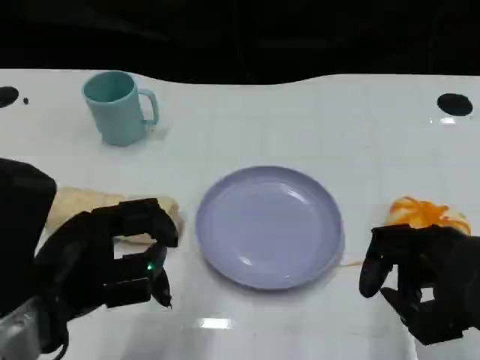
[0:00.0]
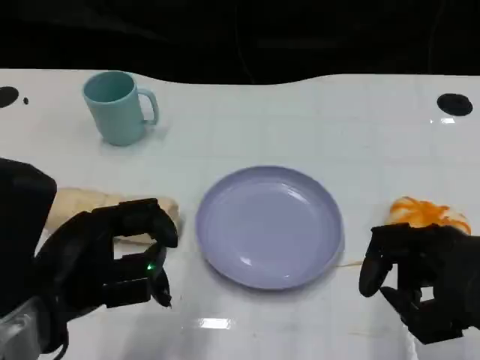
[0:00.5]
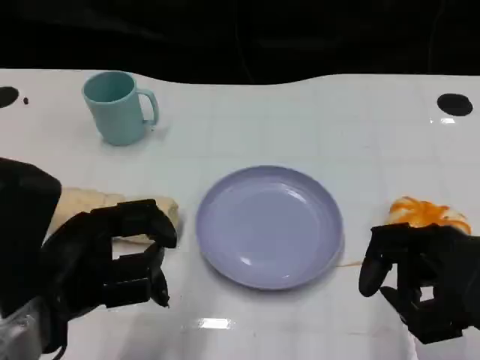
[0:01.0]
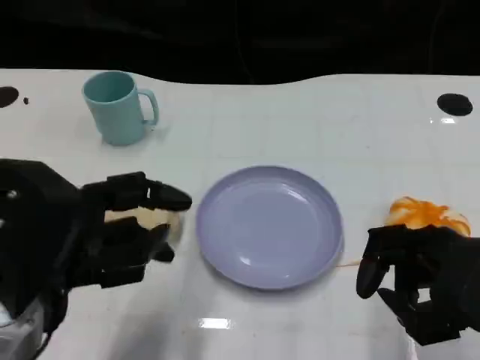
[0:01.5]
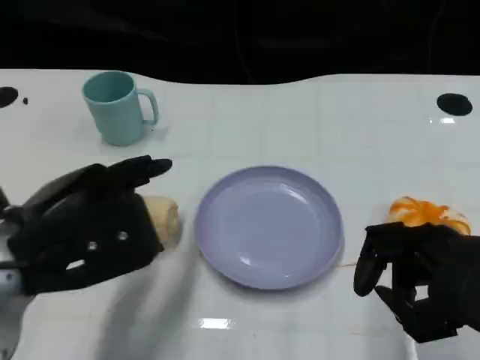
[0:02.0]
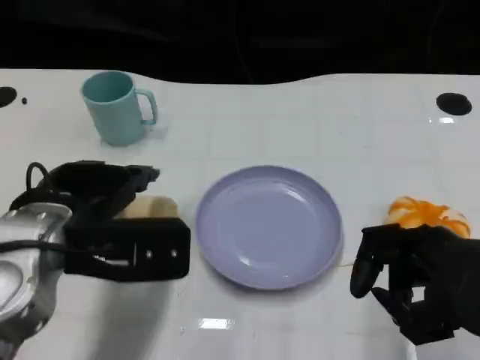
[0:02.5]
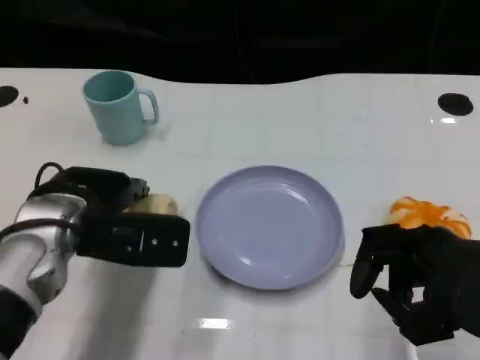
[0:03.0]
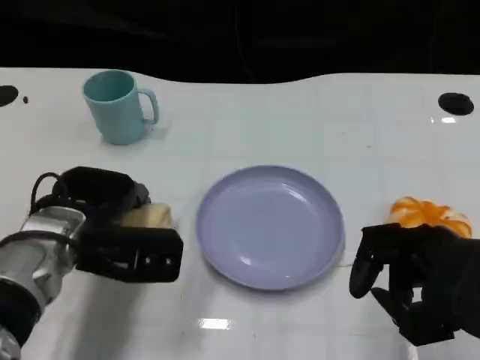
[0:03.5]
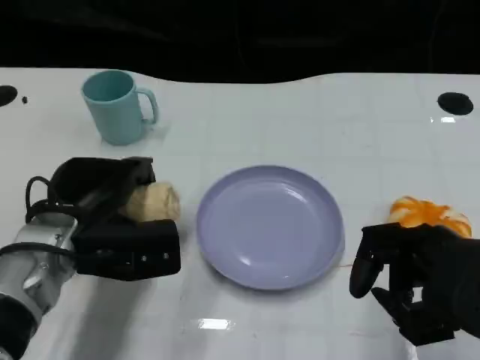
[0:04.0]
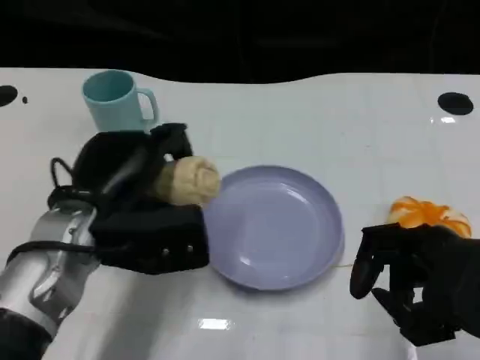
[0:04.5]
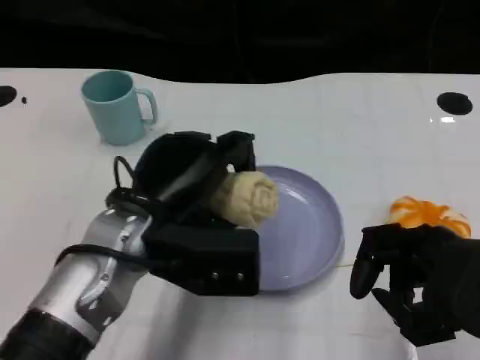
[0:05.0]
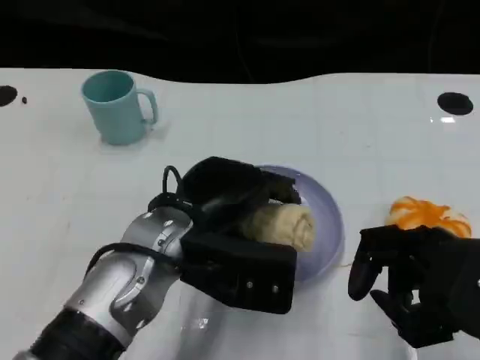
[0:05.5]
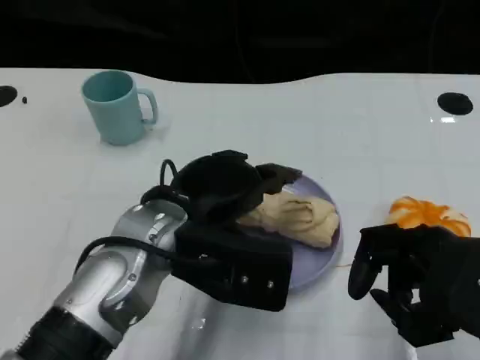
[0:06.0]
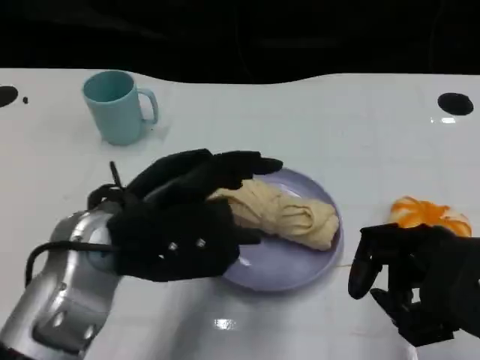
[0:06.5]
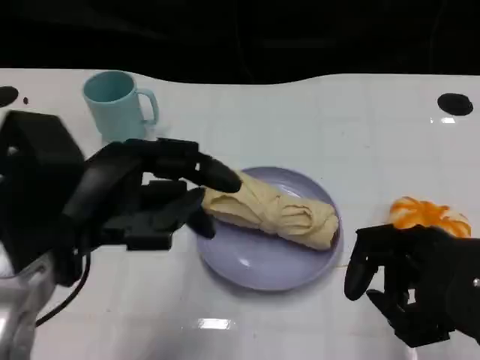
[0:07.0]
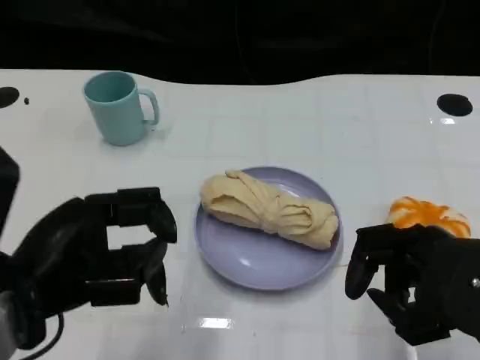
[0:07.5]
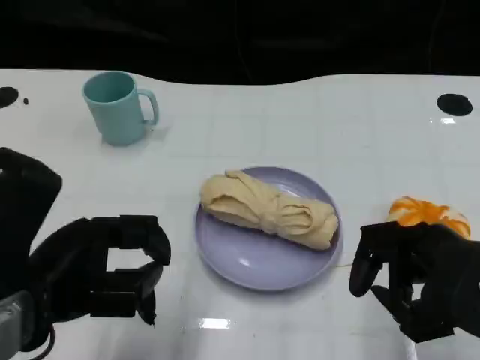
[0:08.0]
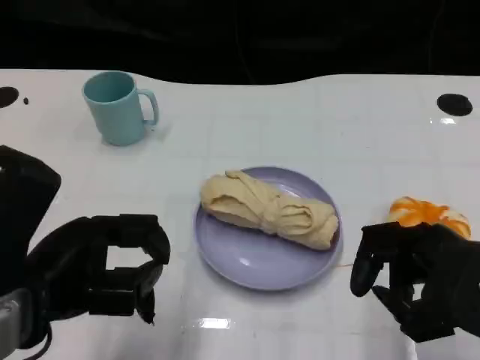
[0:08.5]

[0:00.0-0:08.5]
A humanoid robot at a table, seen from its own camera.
Task of the whole recording: Grasp the towel on the left side of the plate with the left hand and place it into the plate.
0:02.0 to 0:04.0: The left hand is displaced downward and forward by about 10 cm.
0:04.0 to 0:06.5: The left hand moves upward, about 10 cm.
0:06.5 to 0:08.5: The left hand moves to the left, about 5 cm.

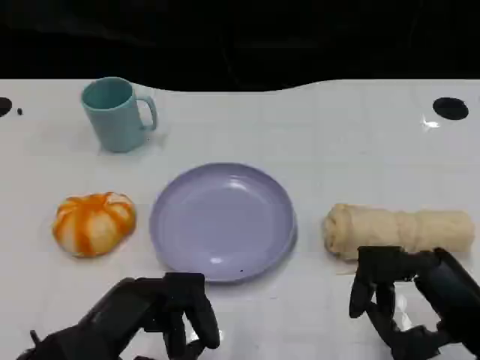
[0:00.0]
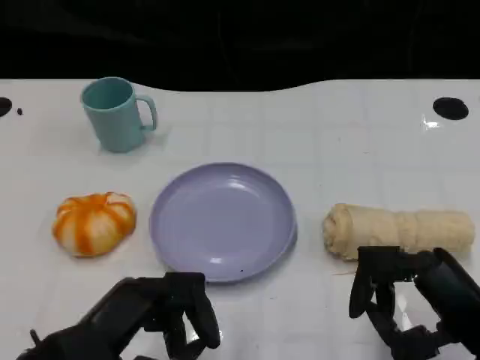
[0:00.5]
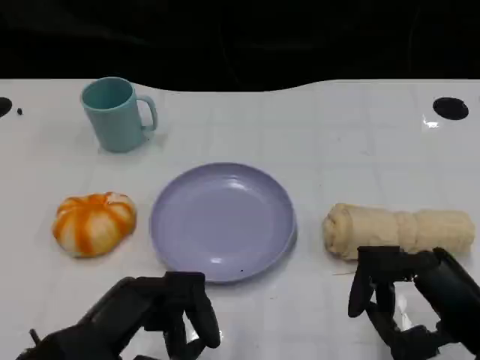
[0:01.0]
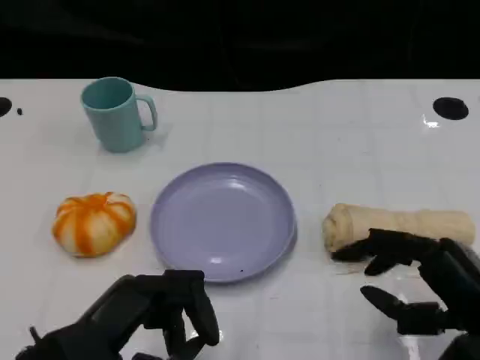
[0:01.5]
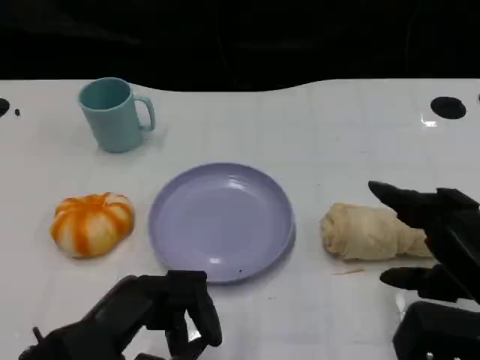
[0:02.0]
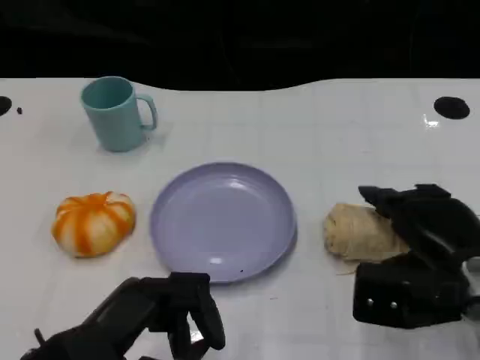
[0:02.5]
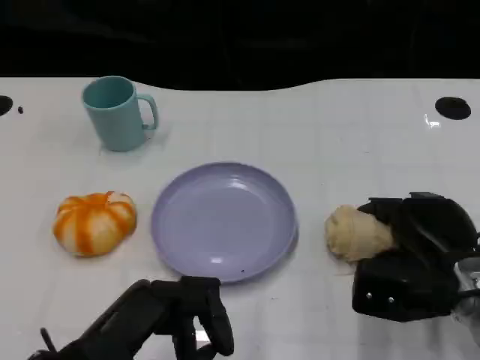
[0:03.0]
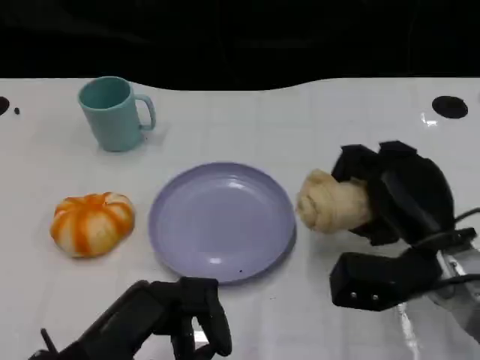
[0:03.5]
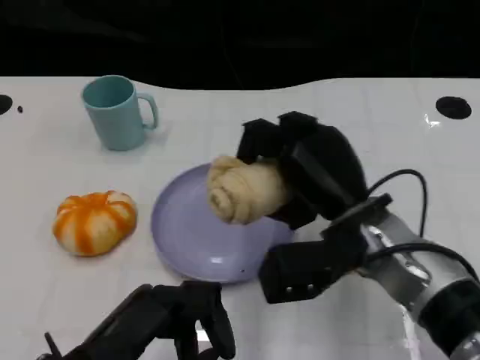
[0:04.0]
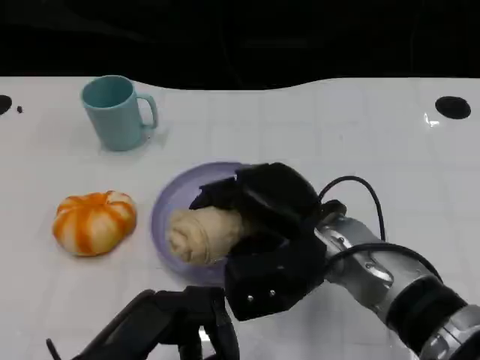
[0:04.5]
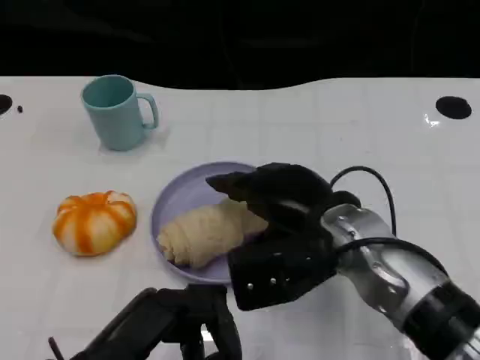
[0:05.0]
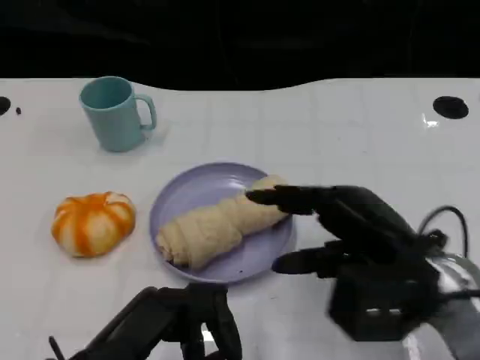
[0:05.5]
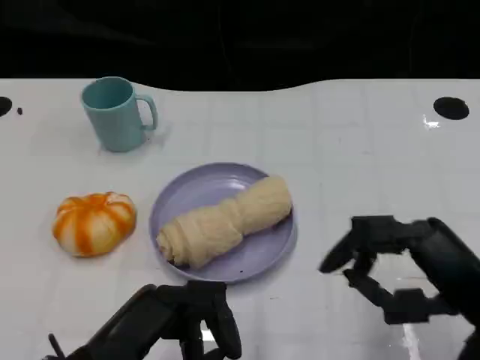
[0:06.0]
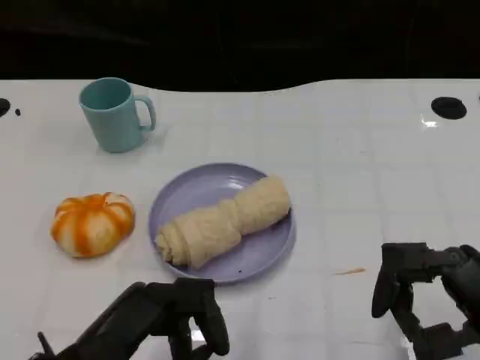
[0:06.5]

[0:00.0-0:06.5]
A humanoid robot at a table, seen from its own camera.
Task of the whole recording: Grasp the towel on the left side of the plate with the left hand and place it into the plate.
0:02.0 to 0:04.5: The right hand travels to the left and forward by roughly 20 cm.
0:04.5 to 0:06.5: The right hand heads to the right and backward, covering about 20 cm.
